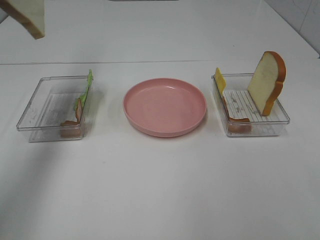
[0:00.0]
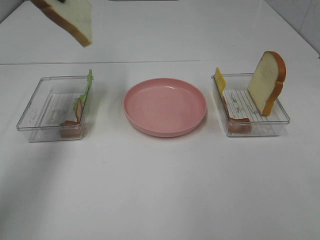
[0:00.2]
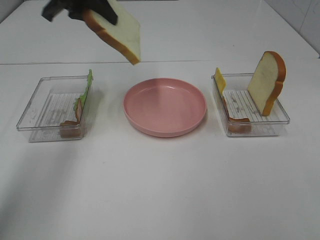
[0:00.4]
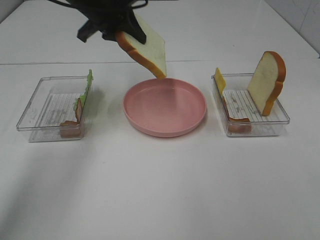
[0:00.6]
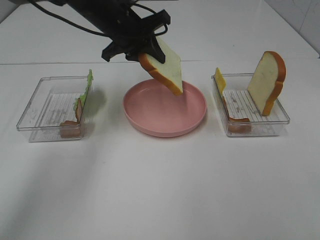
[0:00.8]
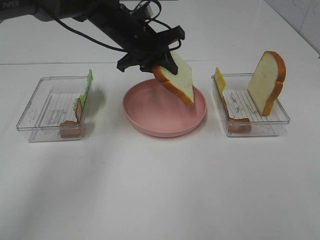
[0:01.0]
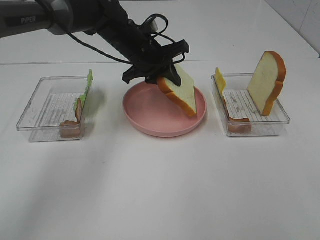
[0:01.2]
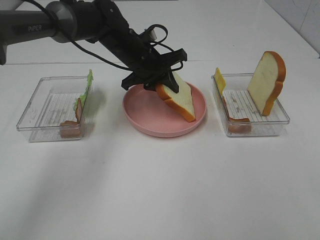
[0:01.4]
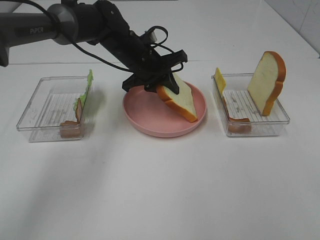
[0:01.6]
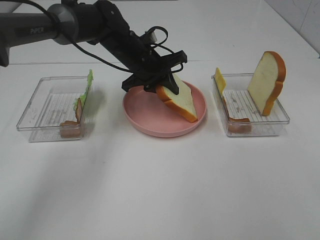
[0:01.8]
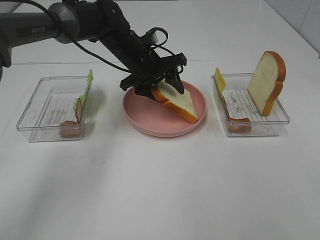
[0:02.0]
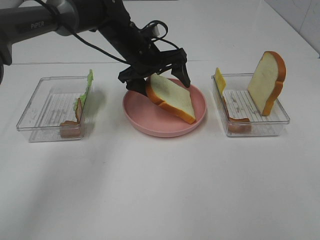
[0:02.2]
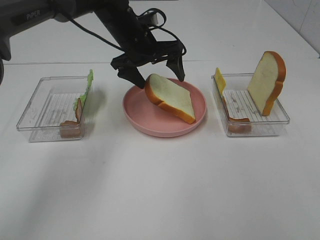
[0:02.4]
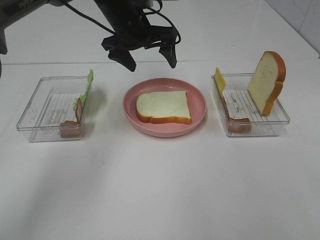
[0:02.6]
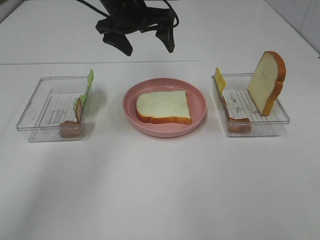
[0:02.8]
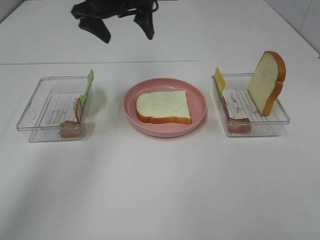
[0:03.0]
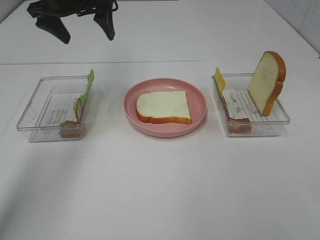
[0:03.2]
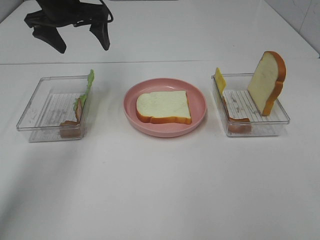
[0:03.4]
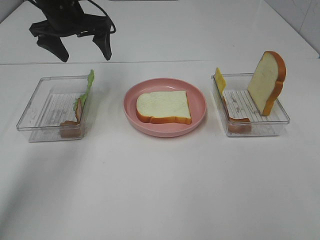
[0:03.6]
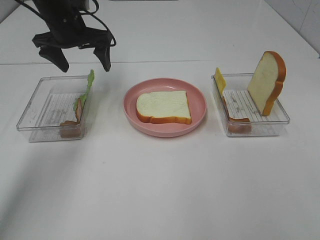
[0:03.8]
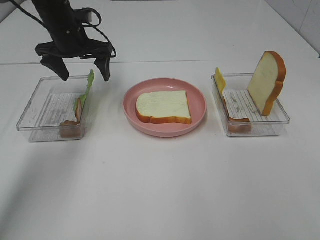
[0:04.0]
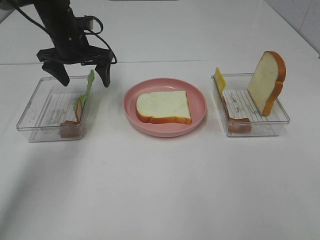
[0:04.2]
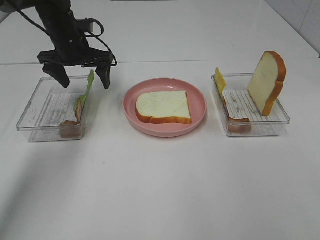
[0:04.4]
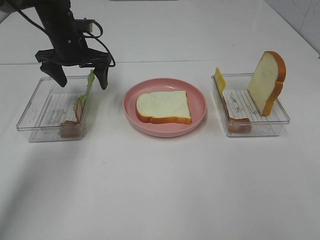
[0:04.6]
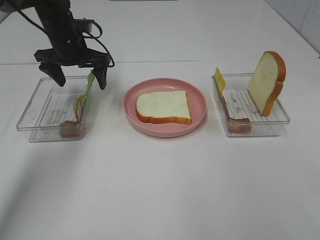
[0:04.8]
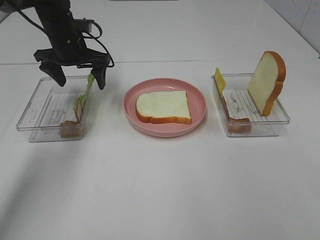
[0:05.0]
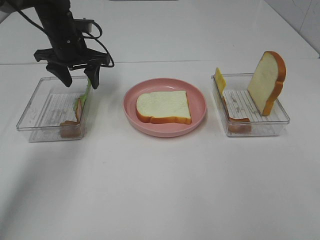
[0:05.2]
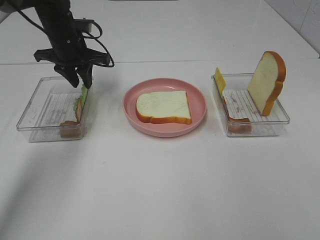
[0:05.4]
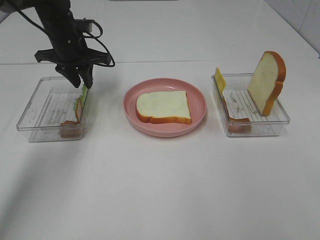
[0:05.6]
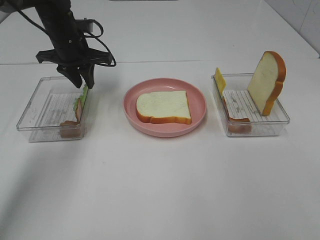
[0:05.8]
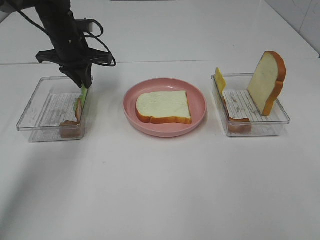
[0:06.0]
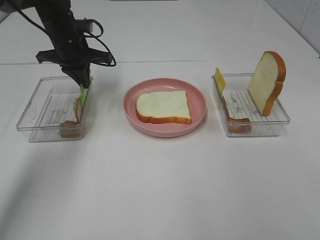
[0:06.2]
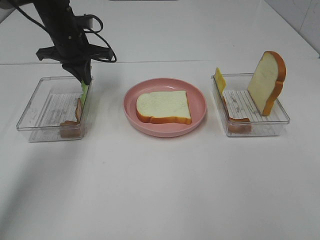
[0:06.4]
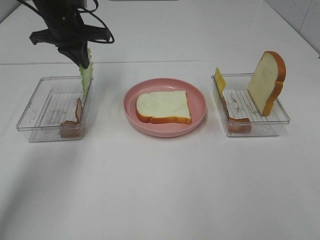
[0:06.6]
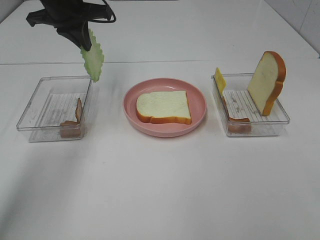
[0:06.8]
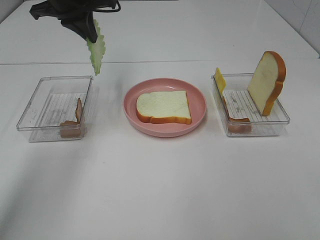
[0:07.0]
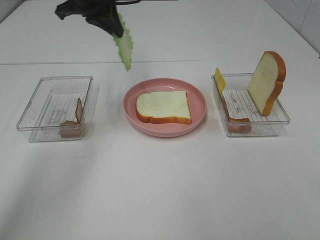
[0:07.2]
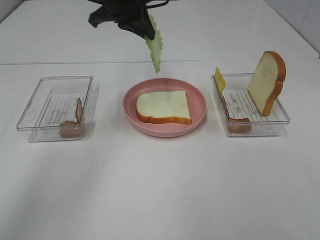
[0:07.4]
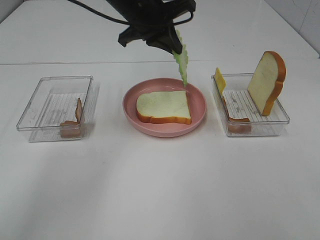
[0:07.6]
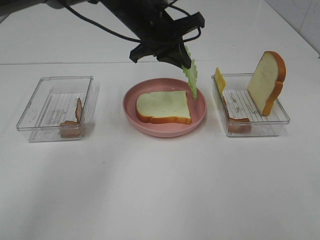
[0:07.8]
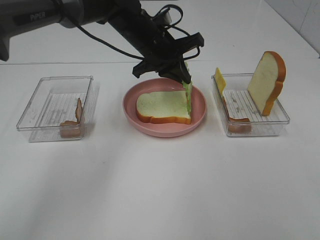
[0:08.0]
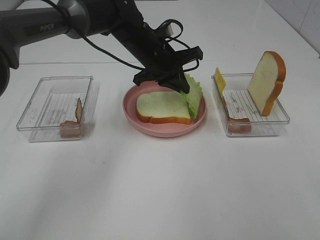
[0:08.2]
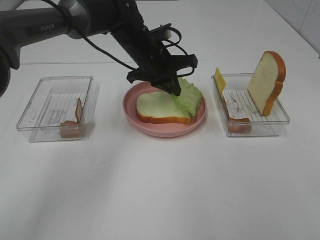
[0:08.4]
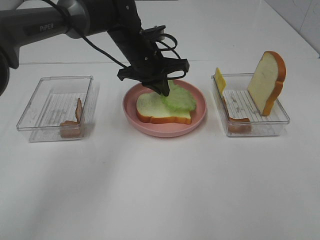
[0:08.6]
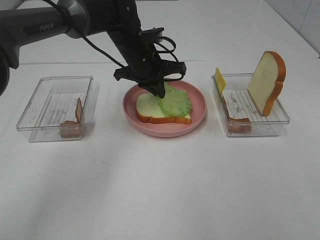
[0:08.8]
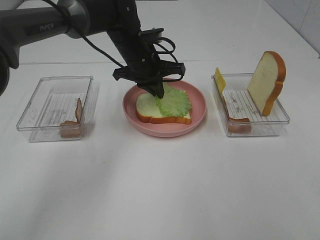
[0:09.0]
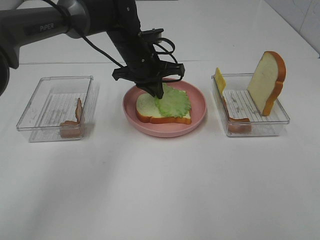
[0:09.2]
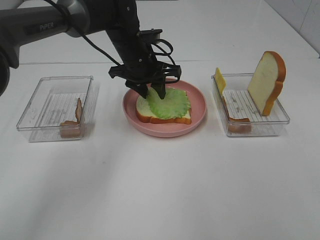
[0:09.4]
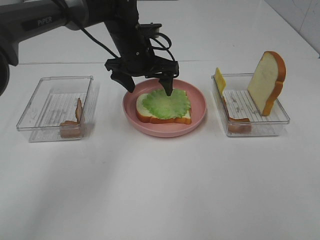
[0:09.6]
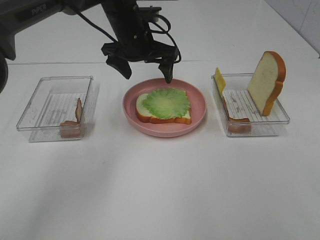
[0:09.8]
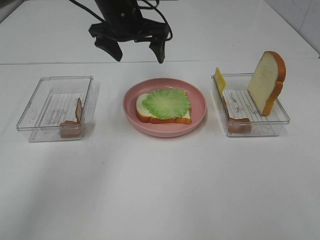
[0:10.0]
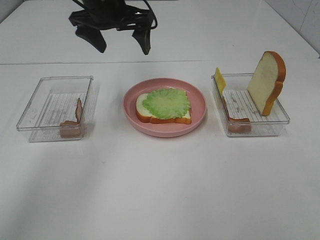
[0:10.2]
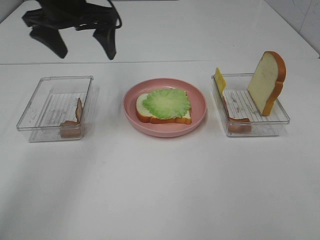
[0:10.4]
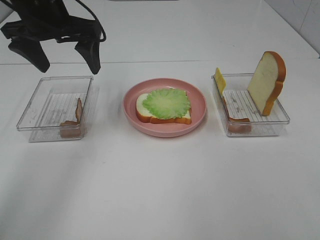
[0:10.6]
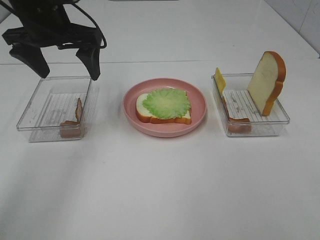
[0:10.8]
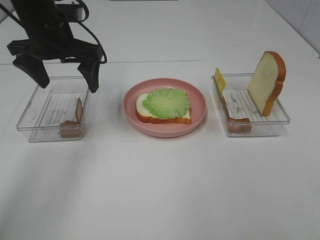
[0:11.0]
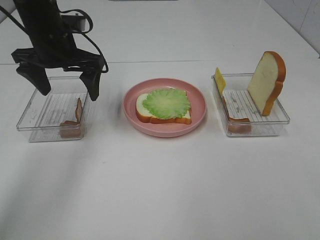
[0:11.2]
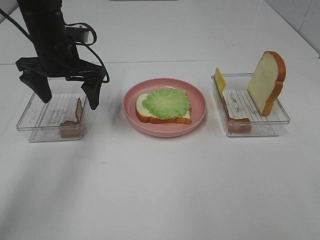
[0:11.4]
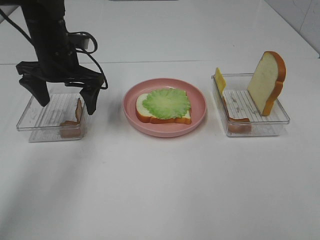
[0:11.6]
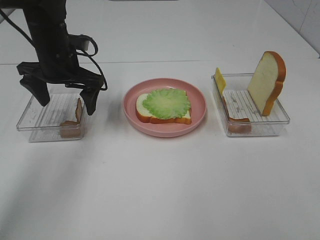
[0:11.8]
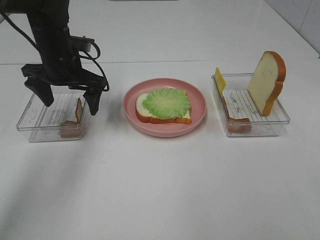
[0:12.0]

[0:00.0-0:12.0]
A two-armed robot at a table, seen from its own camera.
Task of the whole recording: Make sandwiches.
Step, 0:00.0 to 0:02.4: Left hand:place the bread slice on the plate.
Step, 0:02.6 to 0:06.2: Left hand:grab the lettuce slice.
Step, 0:06.4 to 0:09.4: Left hand:place the lettuce slice on the bread slice.
0:00.0 to 0:01.6: The left gripper shifts about 35 cm downward and to the right.
0:01.6 to 0:03.0: The left gripper is displaced upward and to the left by some 15 cm, and opens its fingers.
0:03.0 to 0:04.4: The left gripper travels downward and to the left by some 15 cm.
0:04.4 to 0:06.0: The left gripper closes up.
0:06.0 to 0:07.6: The left gripper travels to the right and upward by roughly 15 cm.
0:07.6 to 0:09.0: The left gripper is displaced downward by approximately 10 cm.
0:09.0 to 0:10.4: The left gripper heads upward and to the left, covering approximately 20 cm, and opens up.
0:10.4 to 0:12.0: The left gripper travels downward by some 10 cm.

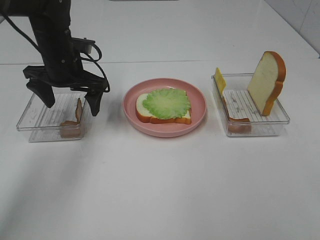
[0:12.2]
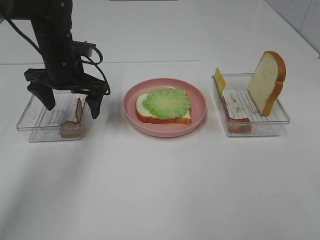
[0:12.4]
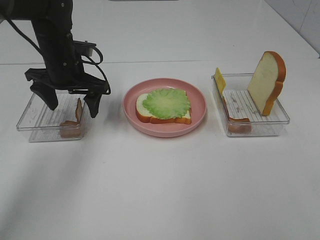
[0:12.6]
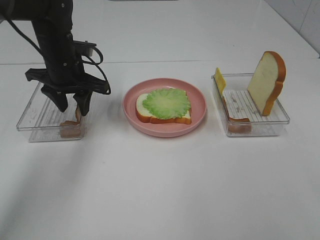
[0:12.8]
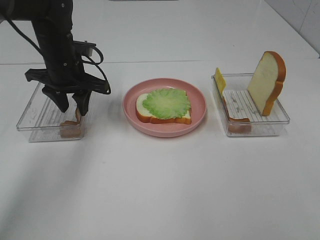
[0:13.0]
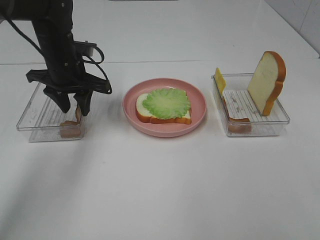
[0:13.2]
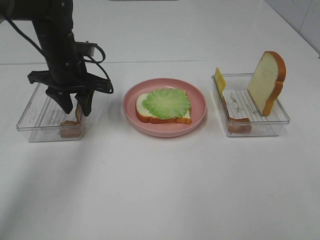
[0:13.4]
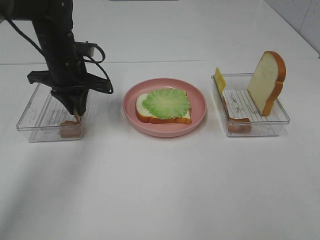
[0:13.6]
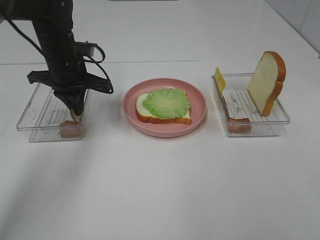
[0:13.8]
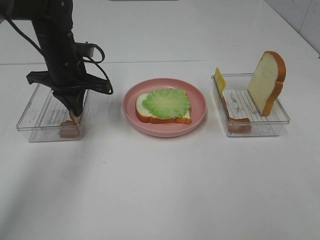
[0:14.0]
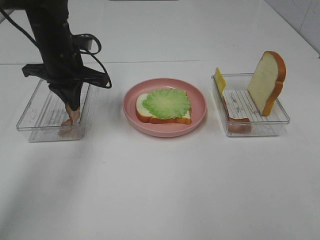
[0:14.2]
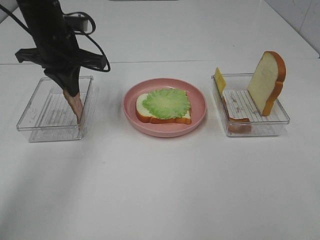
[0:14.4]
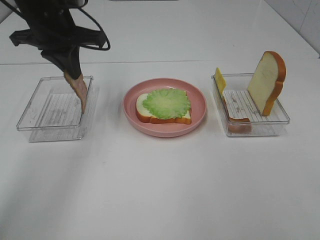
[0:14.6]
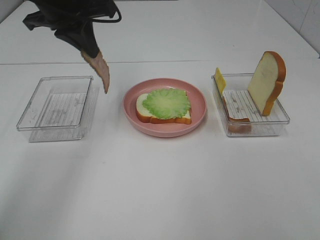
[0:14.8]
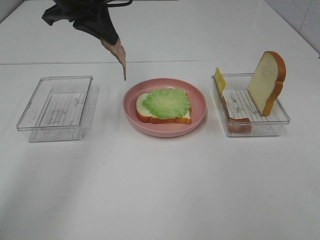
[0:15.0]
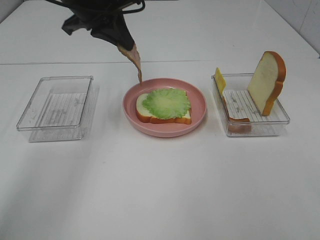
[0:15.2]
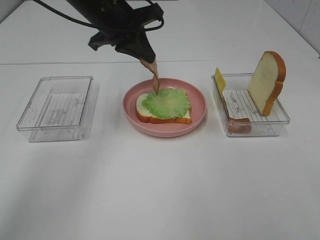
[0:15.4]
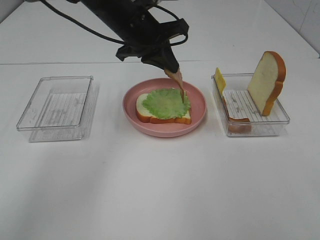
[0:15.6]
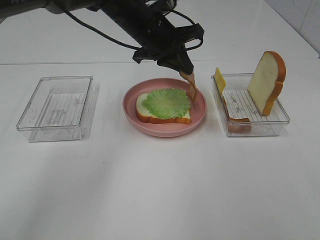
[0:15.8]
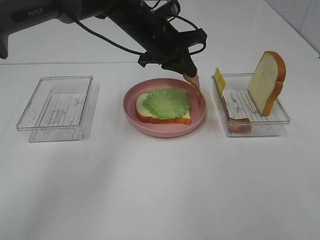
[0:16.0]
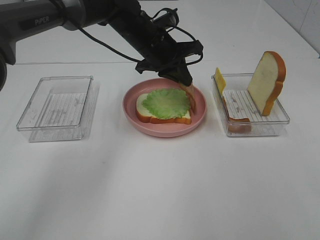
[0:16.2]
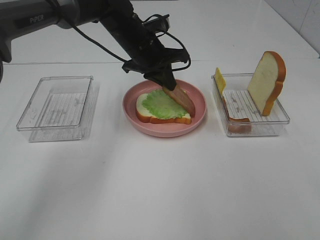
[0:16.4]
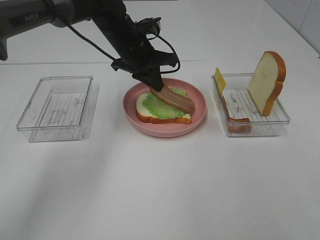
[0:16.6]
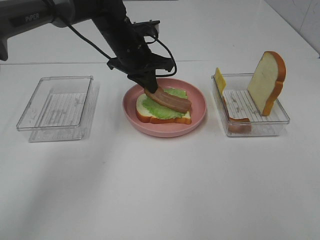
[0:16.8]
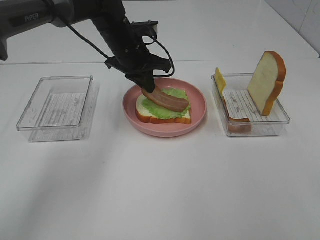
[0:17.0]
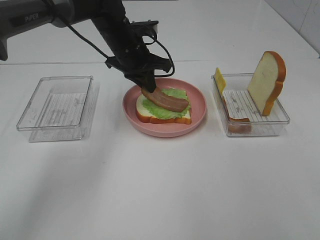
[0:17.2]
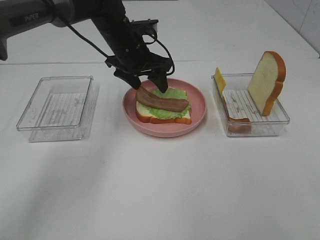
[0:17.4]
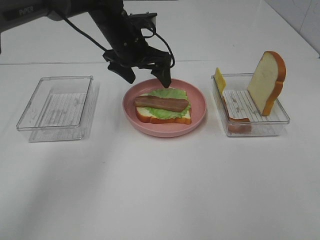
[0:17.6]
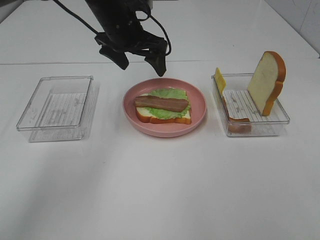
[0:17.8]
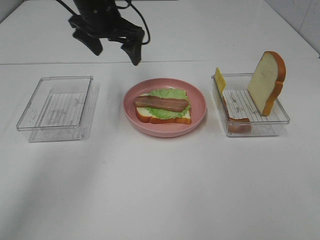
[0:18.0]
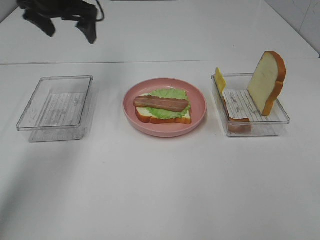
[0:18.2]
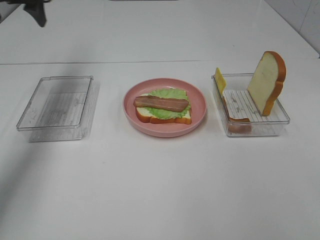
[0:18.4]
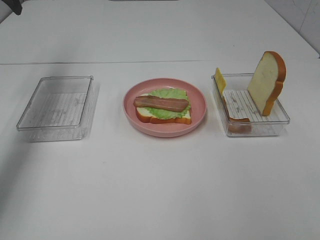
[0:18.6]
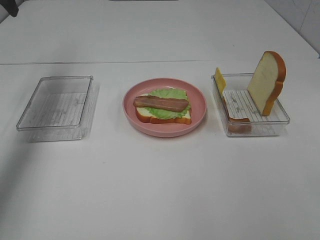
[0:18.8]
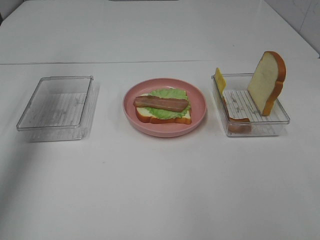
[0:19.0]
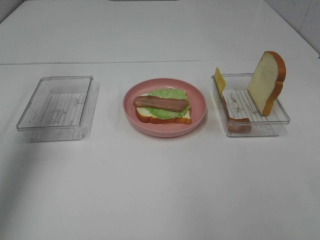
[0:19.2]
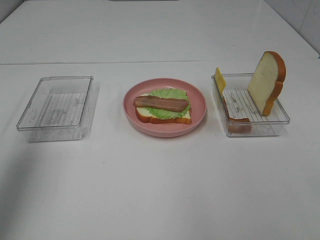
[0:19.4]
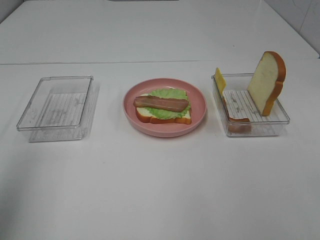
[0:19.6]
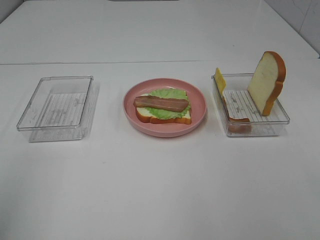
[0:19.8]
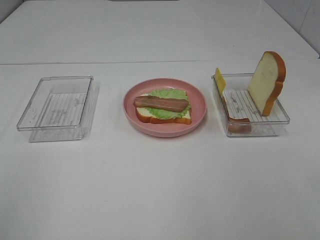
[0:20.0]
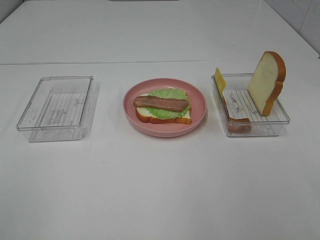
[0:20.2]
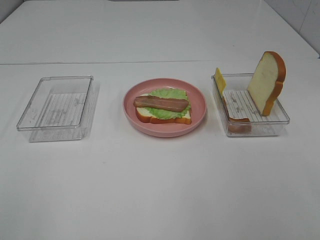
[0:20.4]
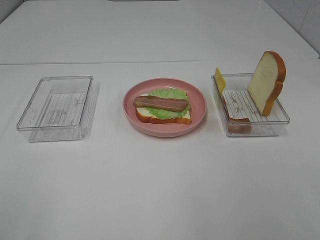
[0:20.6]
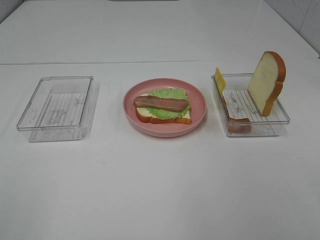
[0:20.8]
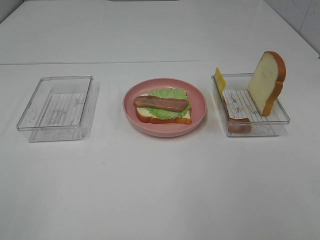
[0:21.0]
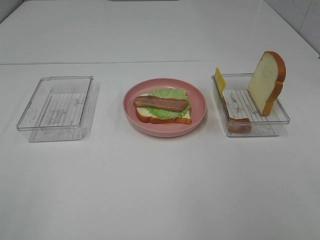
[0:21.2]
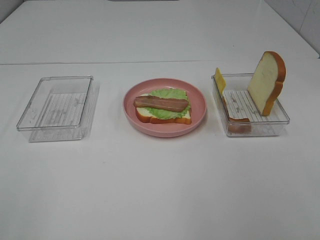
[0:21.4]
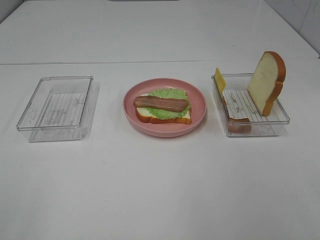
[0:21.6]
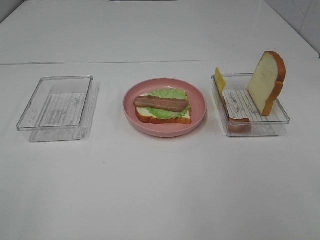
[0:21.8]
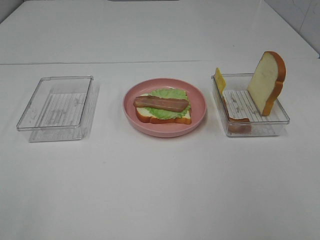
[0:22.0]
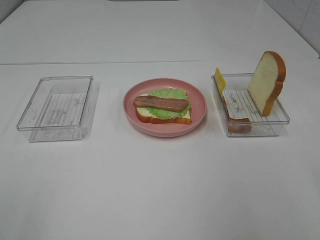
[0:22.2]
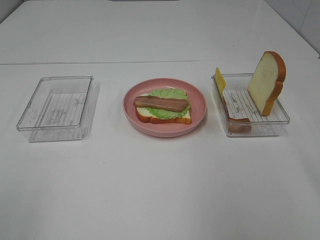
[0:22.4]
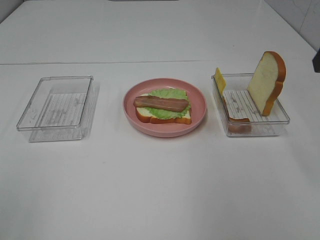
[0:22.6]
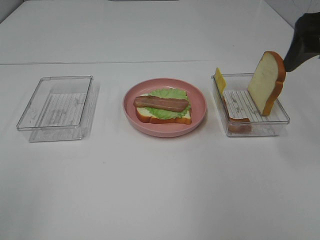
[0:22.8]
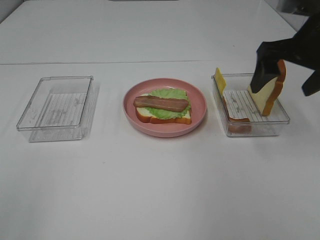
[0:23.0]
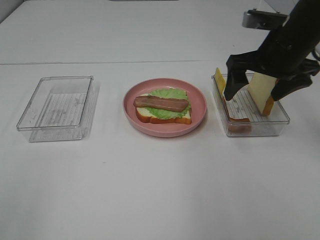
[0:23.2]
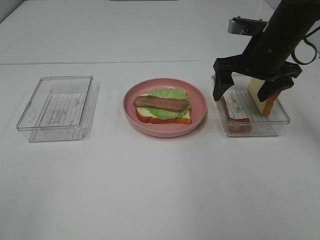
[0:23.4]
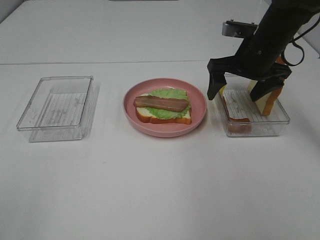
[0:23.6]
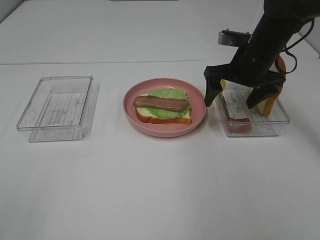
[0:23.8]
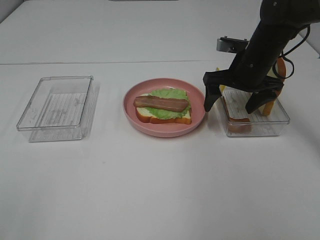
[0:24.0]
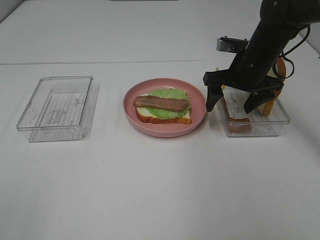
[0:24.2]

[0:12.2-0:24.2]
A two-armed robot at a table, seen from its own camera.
Task of the whole recording: Make sandwiches.
Step, 0:14.2 to 0:17.4: Left hand:place bacon on lettuce slice.
0:12.2 to 0:13.8: The left gripper closes its fingers.
0:13.8 to 0:15.2: The left gripper moves upward, about 10 cm.
0:15.2 to 0:16.6: The left gripper heads downward, to the right and forward, covering approximately 15 cm.
0:16.6 to 0:18.2: The left gripper travels to the left and upward by approximately 20 cm, and opens.
0:18.2 to 0:19.8: The left gripper moves backward, about 40 cm.
0:22.6 to 0:24.2: The right gripper is displaced downward, forward and to the left by approximately 25 cm.
